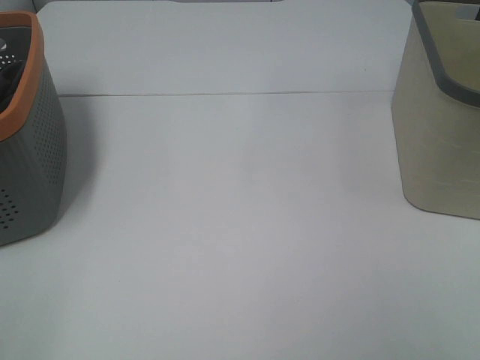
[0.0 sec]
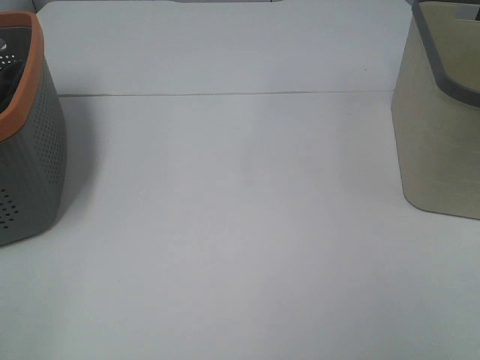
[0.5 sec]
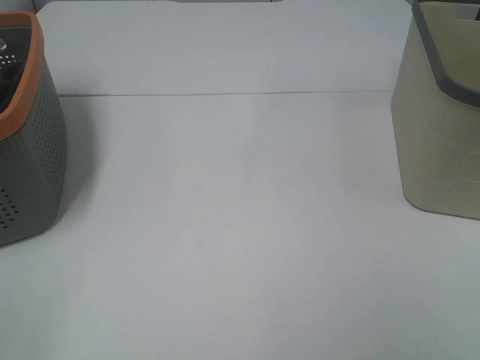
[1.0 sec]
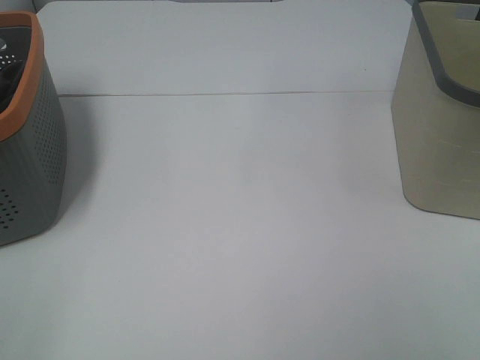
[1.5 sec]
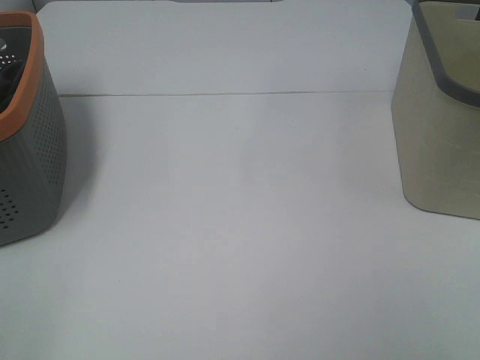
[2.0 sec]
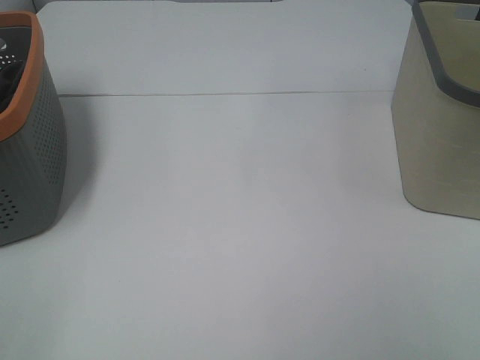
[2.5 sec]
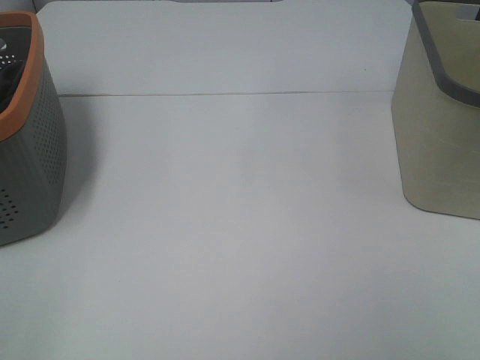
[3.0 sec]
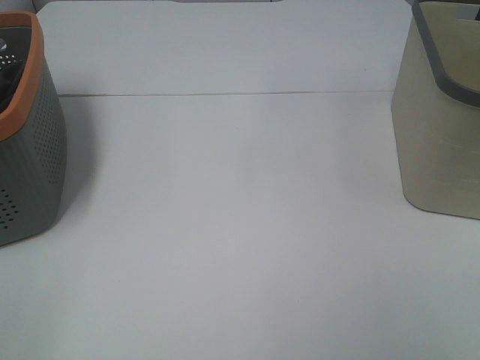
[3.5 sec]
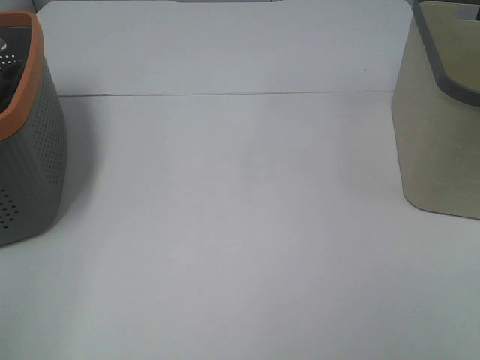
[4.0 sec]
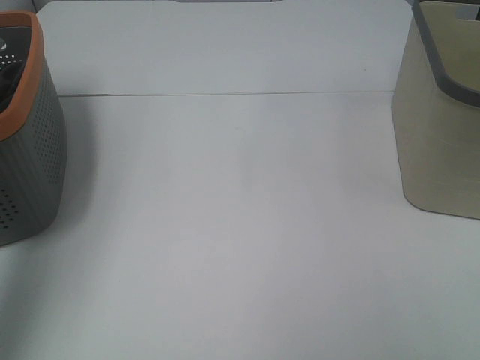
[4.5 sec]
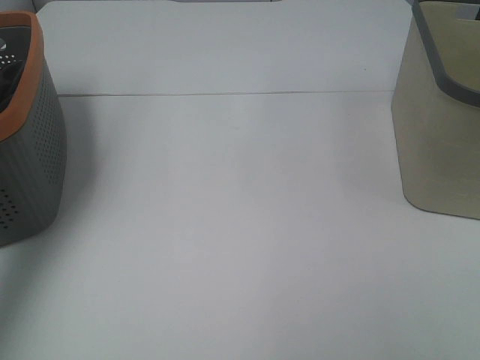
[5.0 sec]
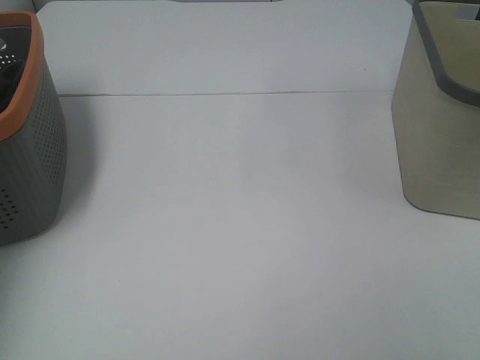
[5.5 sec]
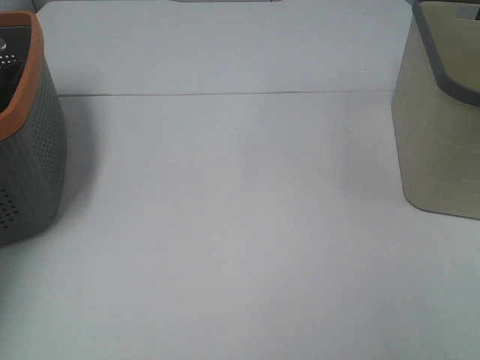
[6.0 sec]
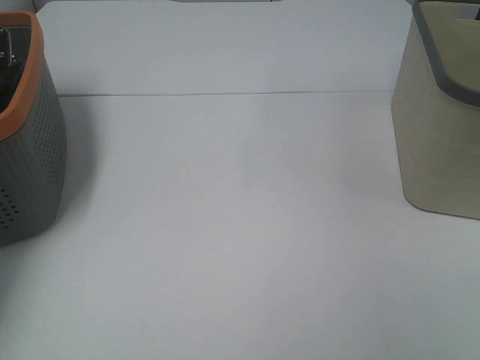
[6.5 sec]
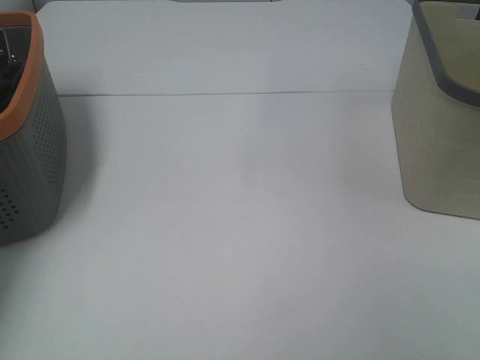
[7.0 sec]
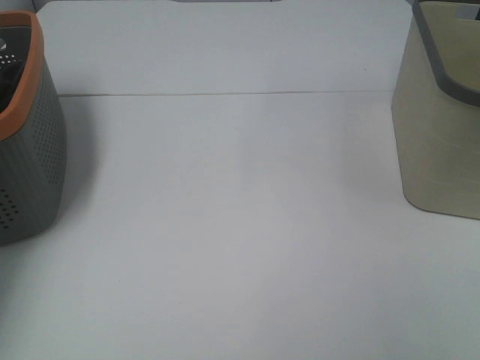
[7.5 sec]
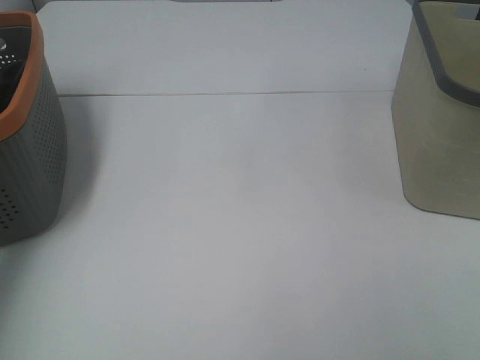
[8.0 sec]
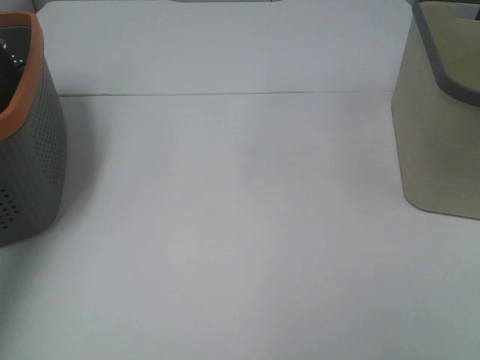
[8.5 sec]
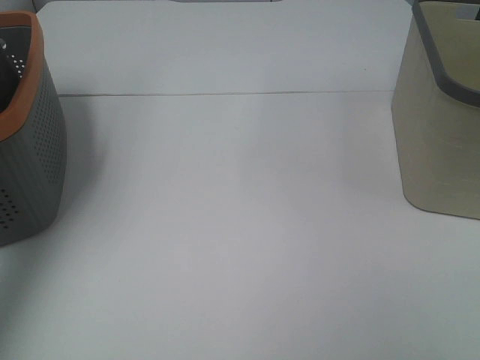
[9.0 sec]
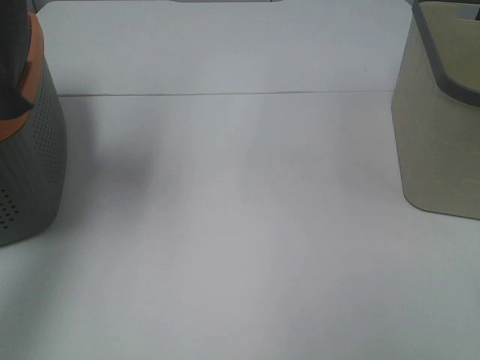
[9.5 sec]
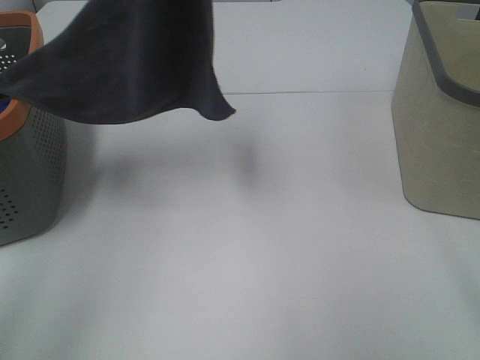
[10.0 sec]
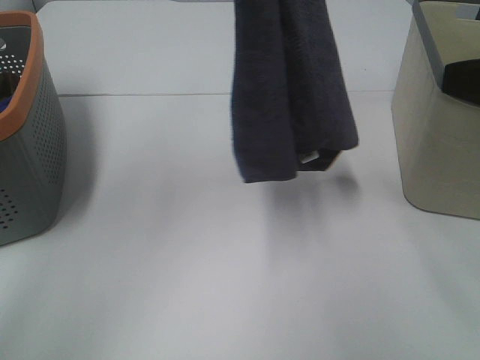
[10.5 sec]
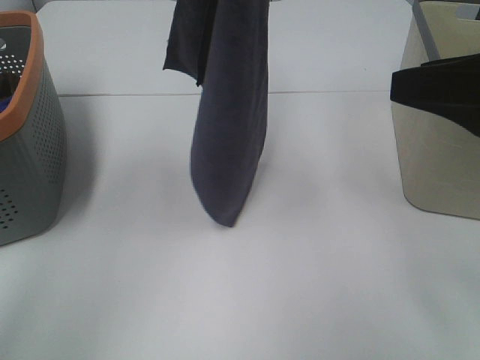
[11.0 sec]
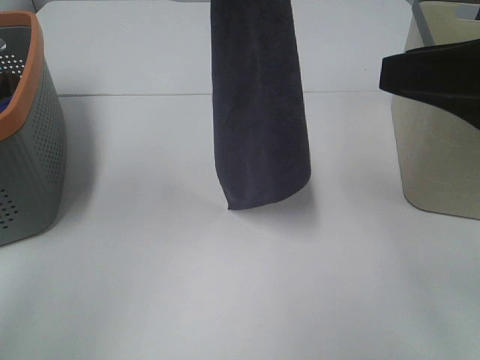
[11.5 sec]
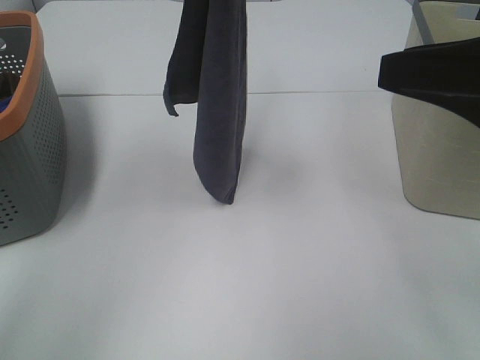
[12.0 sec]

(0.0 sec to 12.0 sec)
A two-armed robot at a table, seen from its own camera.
Task of the whole recording: Remove the towel and place it.
0.0 sec - 2.0 sec: Both grippers stay put.
4.0 sec - 6.0 sec: The left gripper moves forward, roughly 40 cm.
8.0 sec - 10.0 sec: The left gripper is displaced to the right and upward by roughly 30 cm; the right gripper goes roughly 10 cm forward.
10.0 sec - 12.0 sec: The right gripper shifts some 5 cm forward.

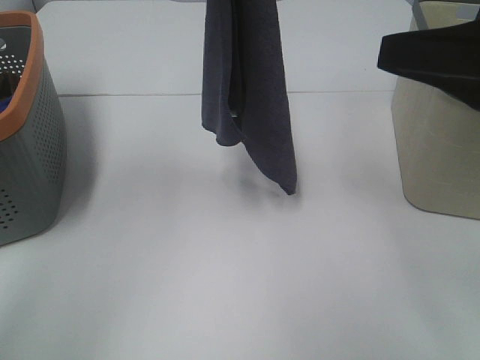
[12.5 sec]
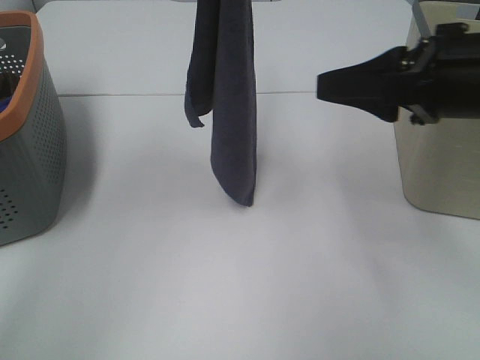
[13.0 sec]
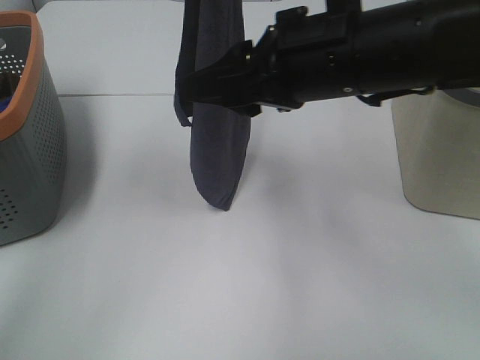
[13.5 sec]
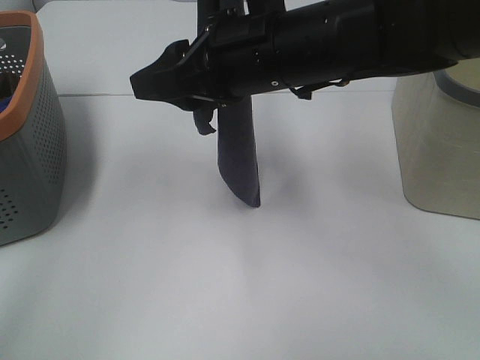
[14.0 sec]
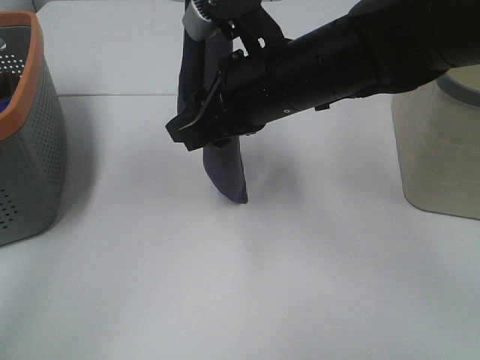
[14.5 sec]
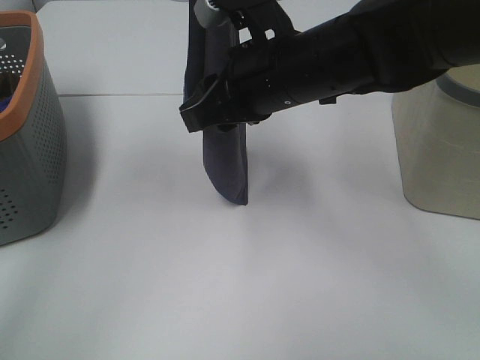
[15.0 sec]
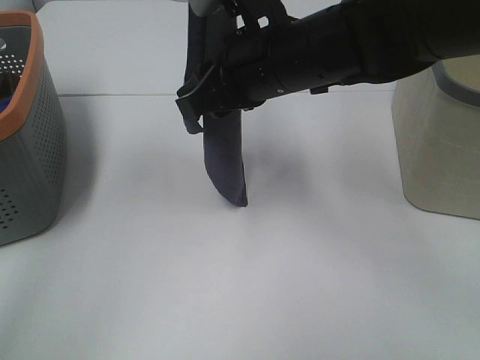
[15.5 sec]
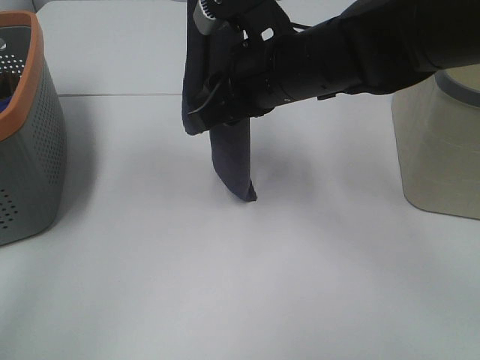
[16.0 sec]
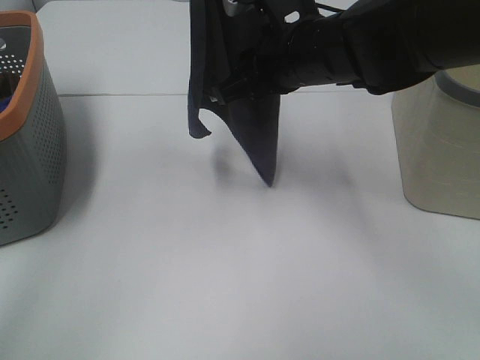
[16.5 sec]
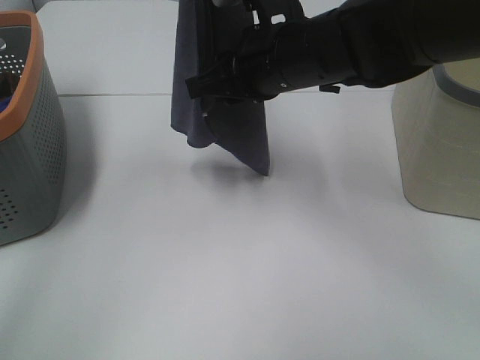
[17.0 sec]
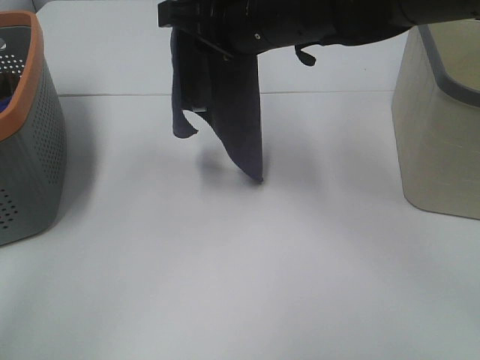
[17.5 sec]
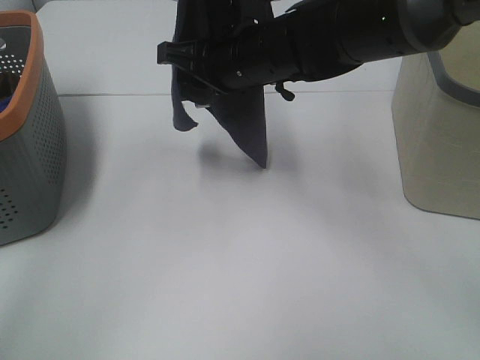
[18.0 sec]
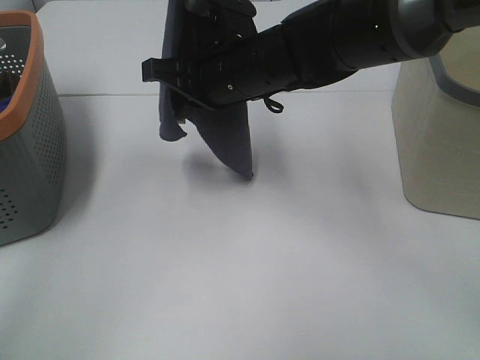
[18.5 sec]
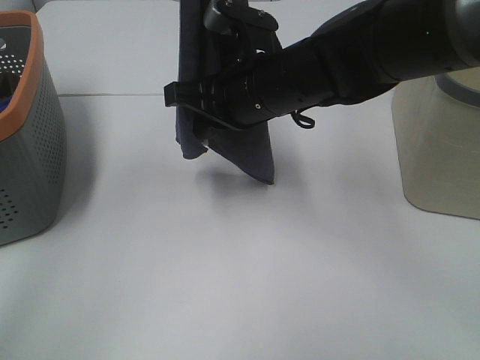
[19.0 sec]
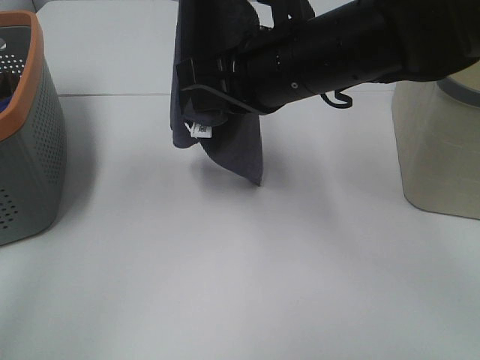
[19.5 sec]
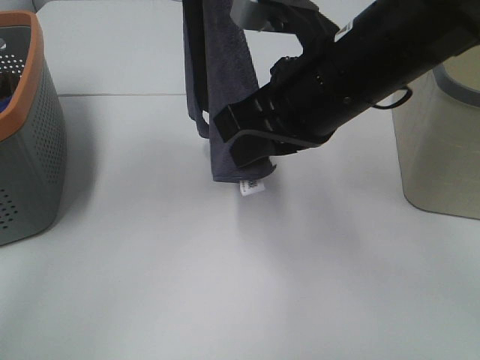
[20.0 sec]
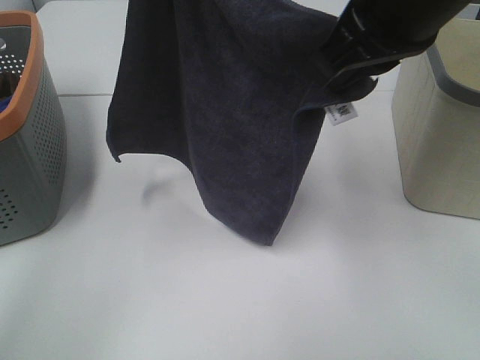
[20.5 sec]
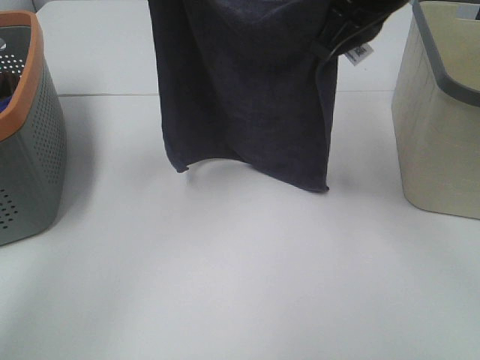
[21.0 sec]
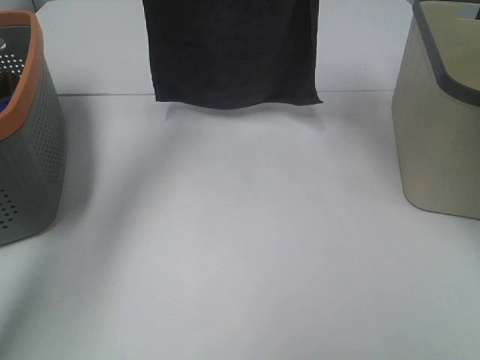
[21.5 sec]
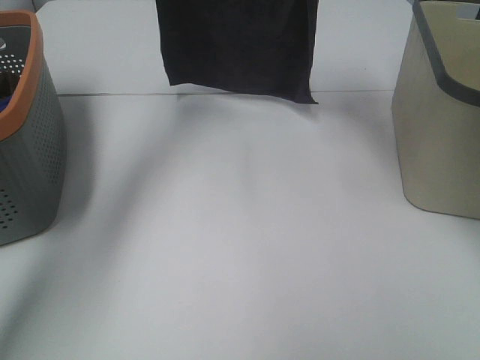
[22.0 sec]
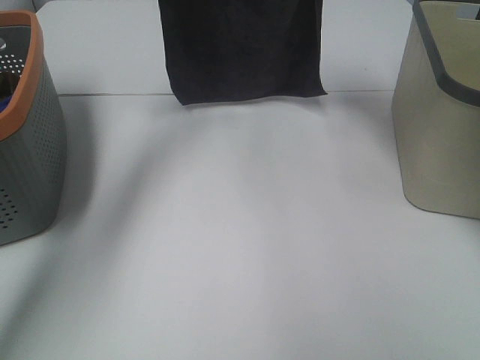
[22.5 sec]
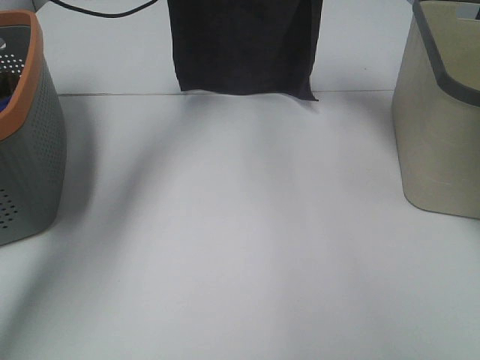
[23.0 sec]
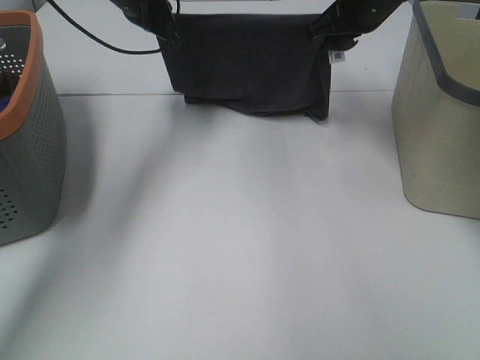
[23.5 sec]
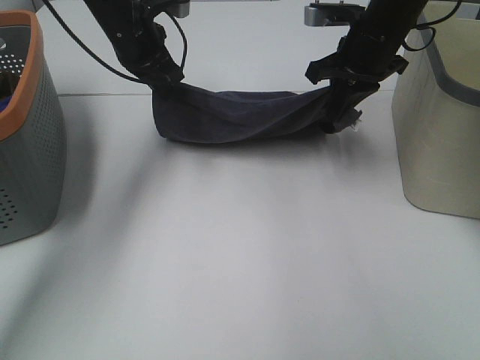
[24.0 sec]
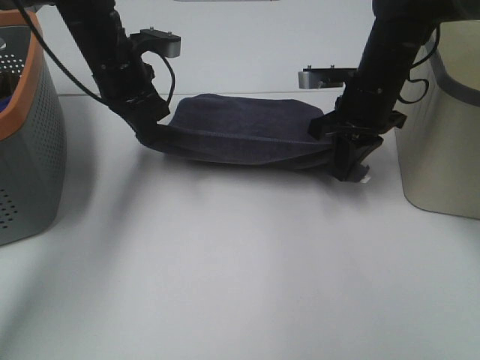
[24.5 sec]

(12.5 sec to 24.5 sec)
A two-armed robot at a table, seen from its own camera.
Task of the whole recording: Remove the towel and place it.
Step, 12.5 sec - 17.0 sec: Right hand: grab a corner of the grey towel and straighten it.
Step, 17.5 sec - 20.5 sec: Right hand: spread the grey towel flat on the table.
12.5 sec - 14.5 sec: The right gripper shifts approximately 20 cm to the left and forward.
16.5 sec - 18.5 sec: The right gripper shifts some 5 cm to the left, and closes up.
18.5 sec - 20.5 sec: The right gripper goes about 20 cm upward, to the right and backward.
20.5 sec - 22.5 sec: The right gripper is displaced forward by about 25 cm. Meanwhile the left gripper goes approximately 20 cm forward and downward.
22.5 sec - 24.5 sec: The grippers both shift downward and backward by approximately 15 cm.

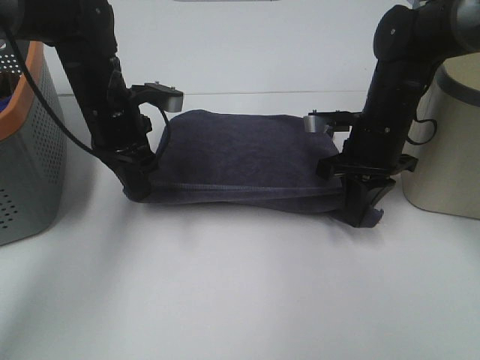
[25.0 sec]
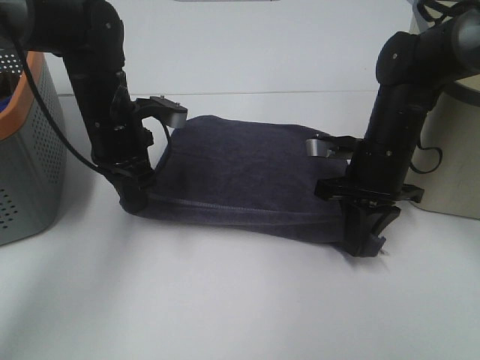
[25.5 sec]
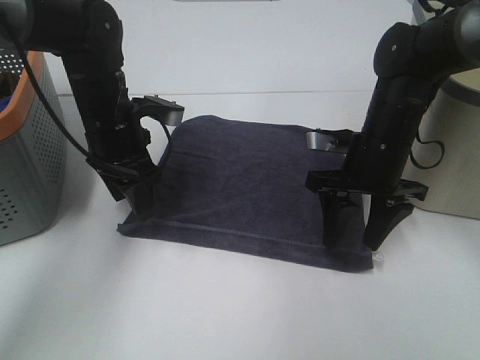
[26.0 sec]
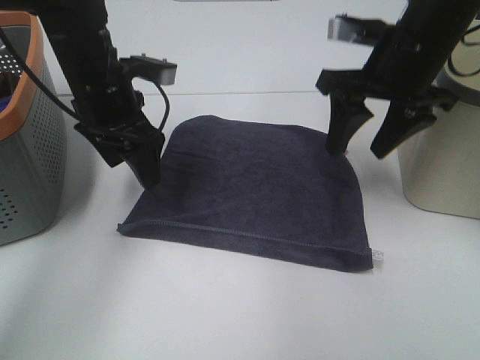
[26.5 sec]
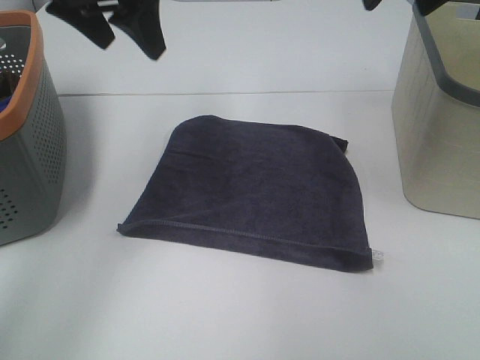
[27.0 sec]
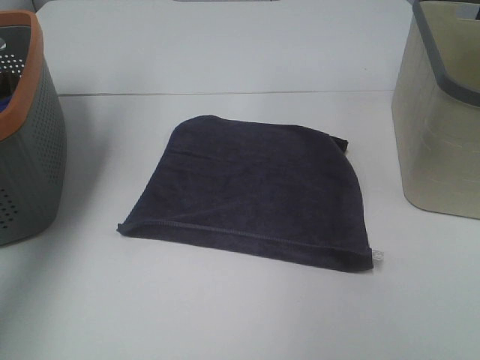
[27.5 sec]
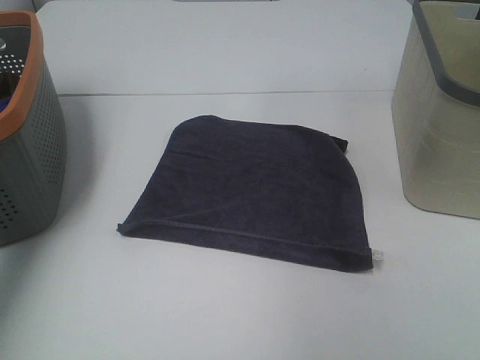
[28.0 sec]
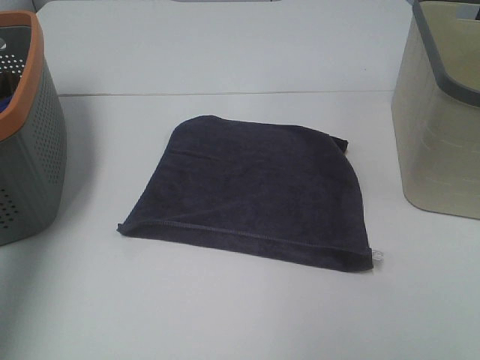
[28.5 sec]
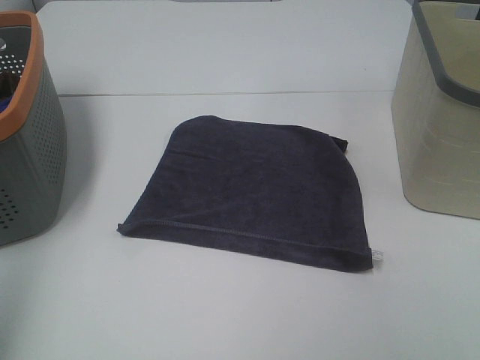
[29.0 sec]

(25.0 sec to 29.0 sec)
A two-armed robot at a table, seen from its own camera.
Task of the whole recording: Remove the towel and place it.
25.0 sec - 27.0 sec: The grippers both shift upward by approximately 25 cm. The right gripper opens, while the left gripper opens its fingers.
27.0 sec - 29.0 sec: The right gripper travels backward by approximately 30 cm. Meanwhile the left gripper moves backward and to the left, roughly 30 cm.
